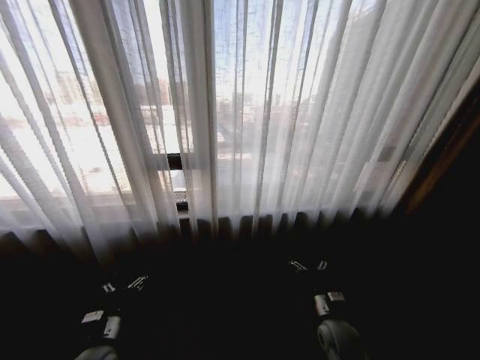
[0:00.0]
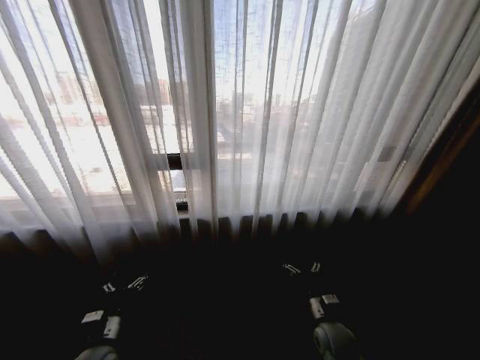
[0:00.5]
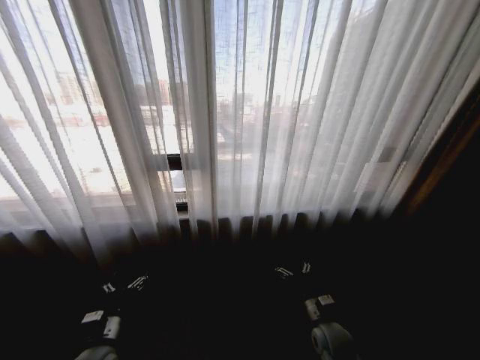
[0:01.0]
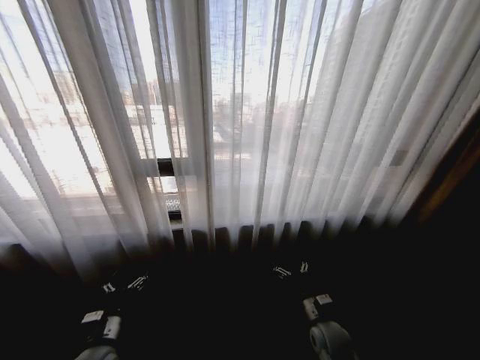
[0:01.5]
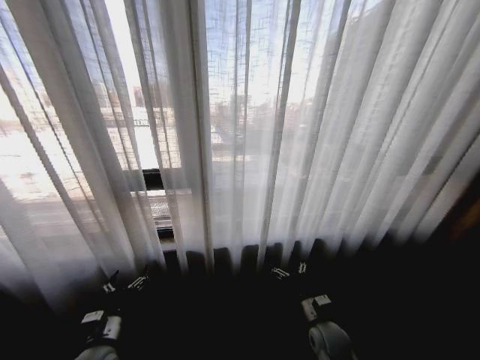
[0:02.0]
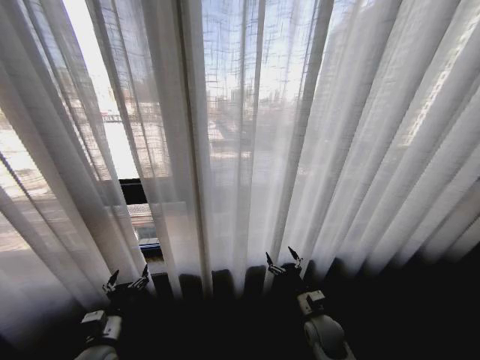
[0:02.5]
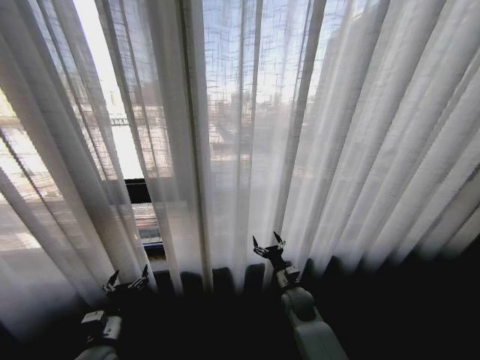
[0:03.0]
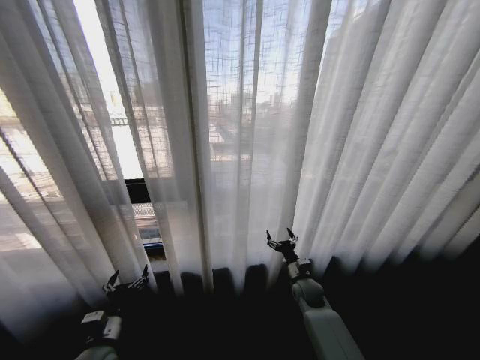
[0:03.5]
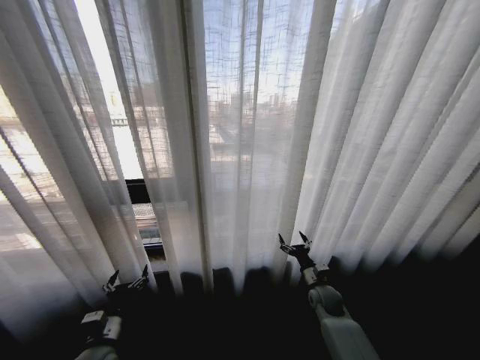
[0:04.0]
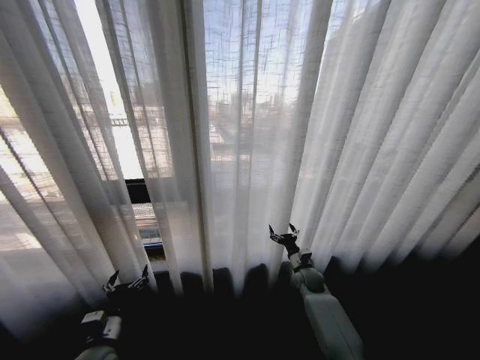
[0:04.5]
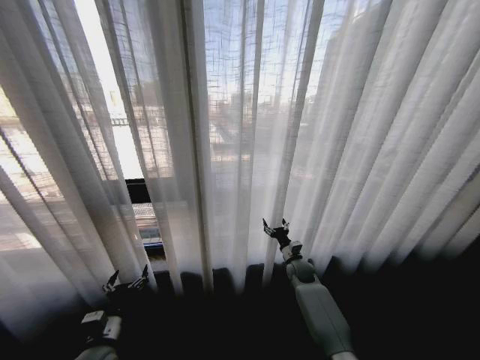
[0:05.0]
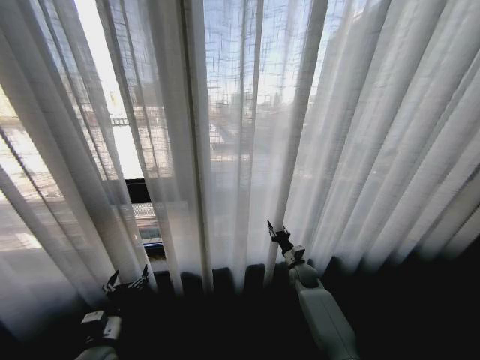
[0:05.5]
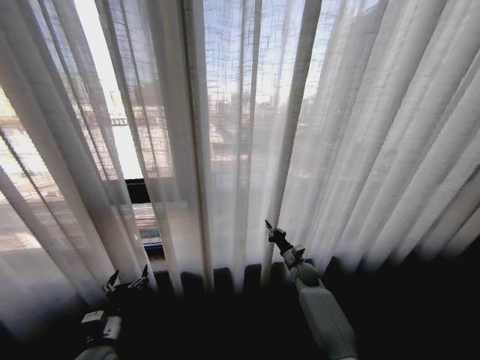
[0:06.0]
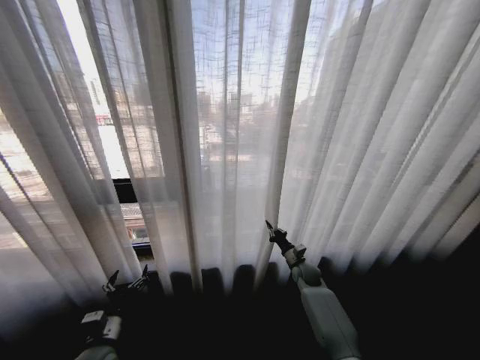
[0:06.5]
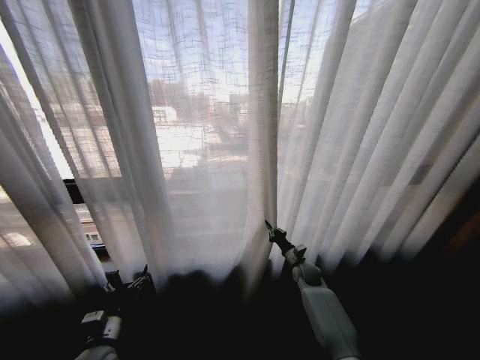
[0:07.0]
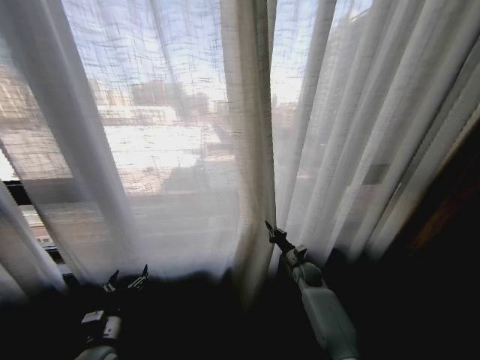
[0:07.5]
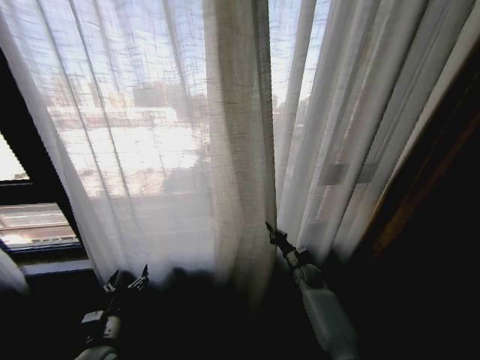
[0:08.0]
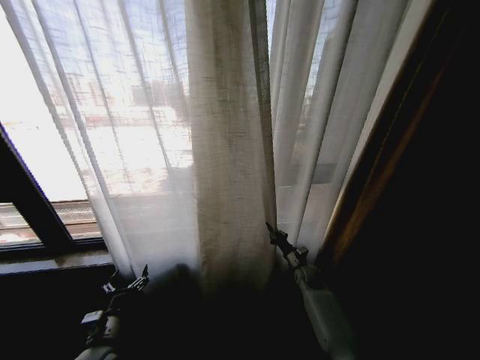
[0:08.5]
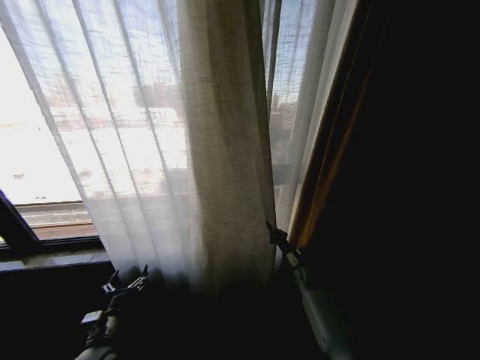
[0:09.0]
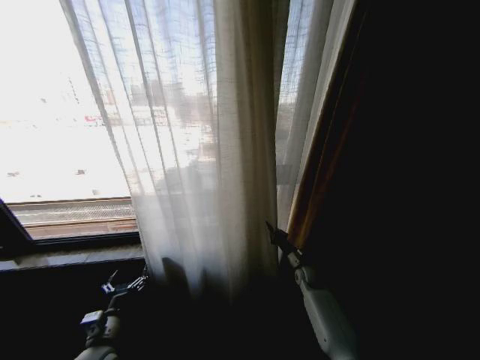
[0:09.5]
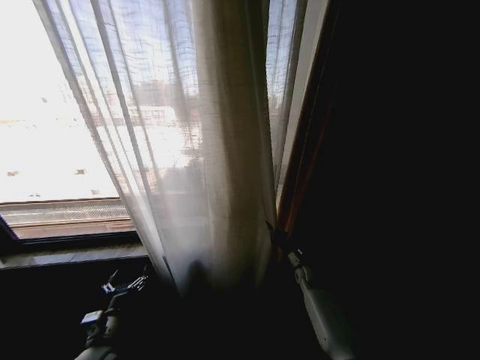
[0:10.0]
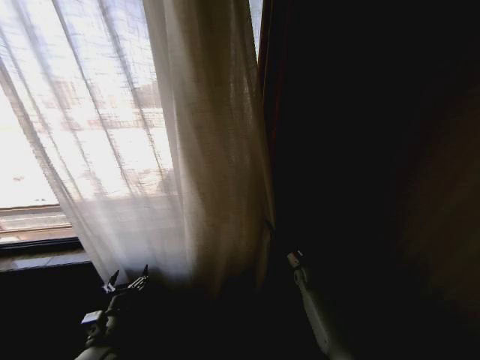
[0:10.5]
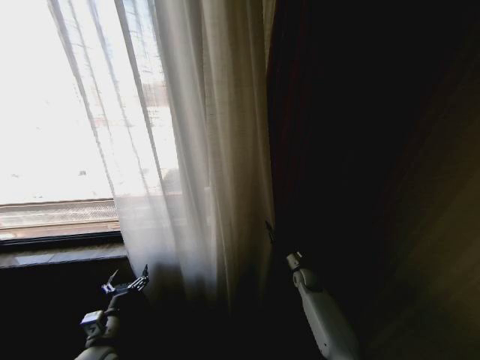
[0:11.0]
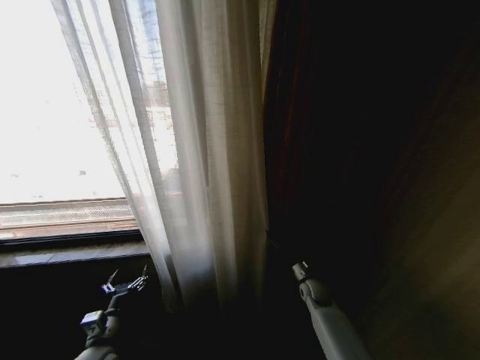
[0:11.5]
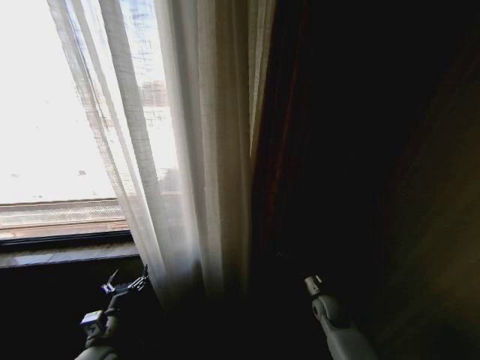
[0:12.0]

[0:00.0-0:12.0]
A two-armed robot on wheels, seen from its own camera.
Task of the whole recording: Open the curtains by pulling them apart, changing their state from closed to fully open.
0:02.0 to 0:04.0: The right gripper moves forward and to the right, about 10 cm.
0:04.0 to 0:06.0: The right gripper is displaced forward by some 10 cm, and closes its fingers.
0:10.0 to 0:12.0: The right gripper travels backward by about 10 cm, and opens its fingers.

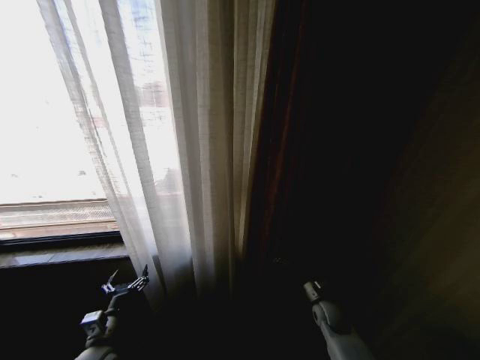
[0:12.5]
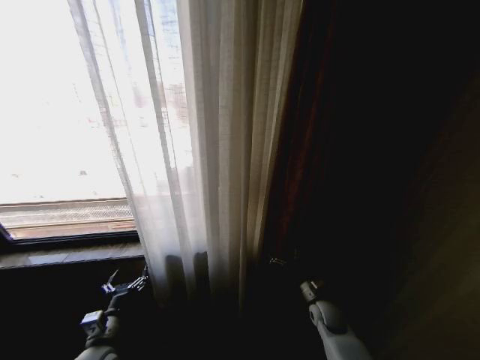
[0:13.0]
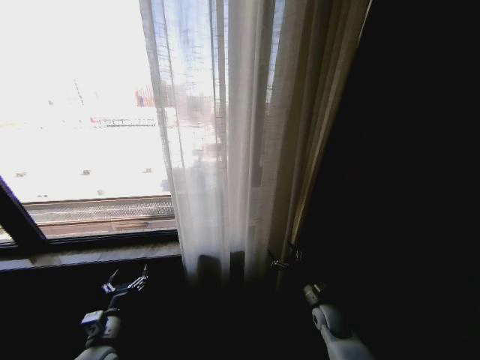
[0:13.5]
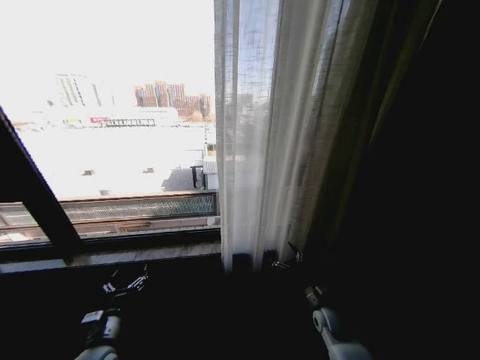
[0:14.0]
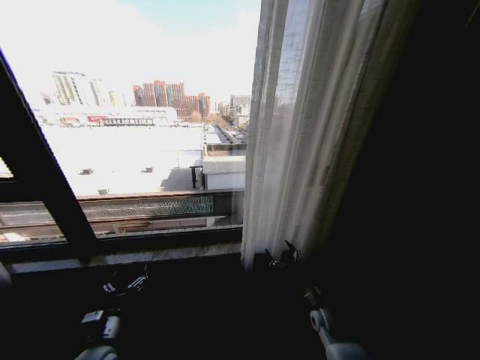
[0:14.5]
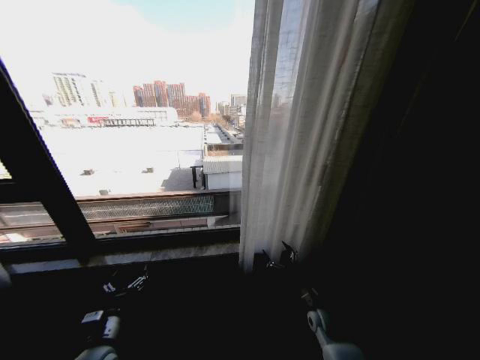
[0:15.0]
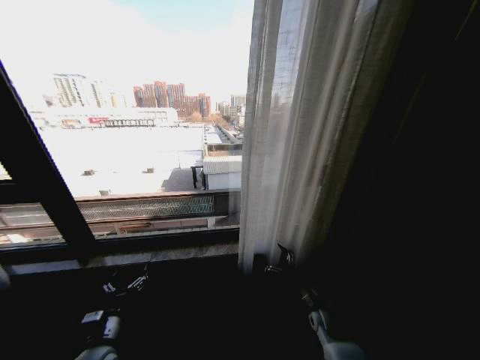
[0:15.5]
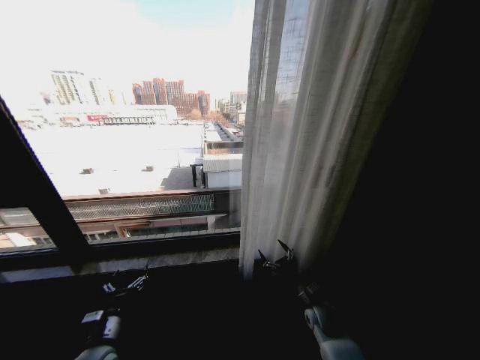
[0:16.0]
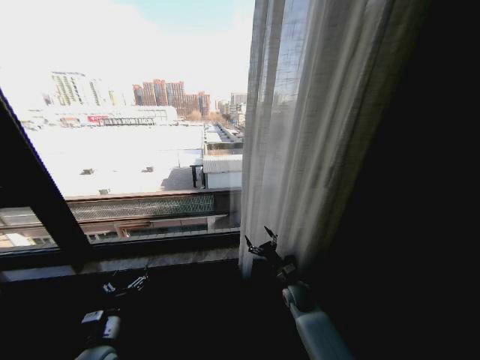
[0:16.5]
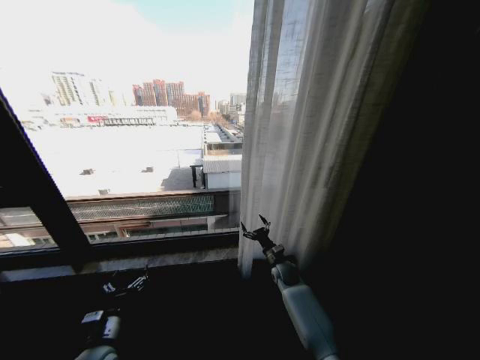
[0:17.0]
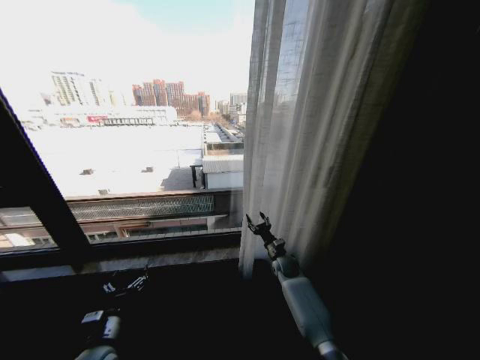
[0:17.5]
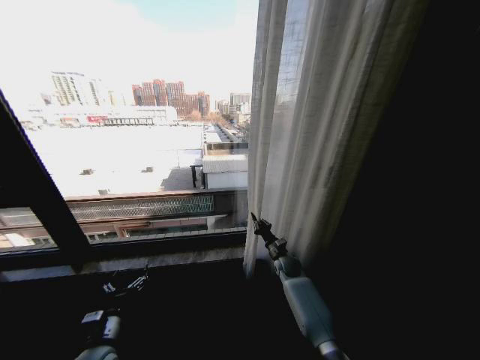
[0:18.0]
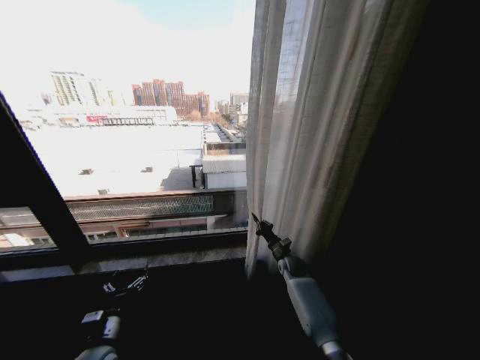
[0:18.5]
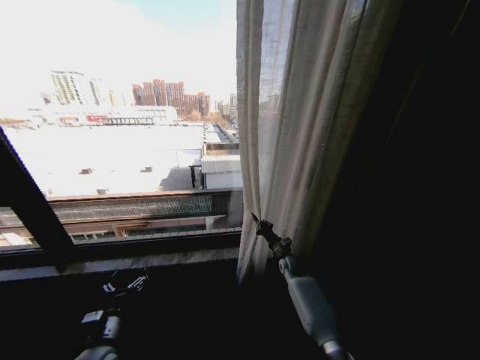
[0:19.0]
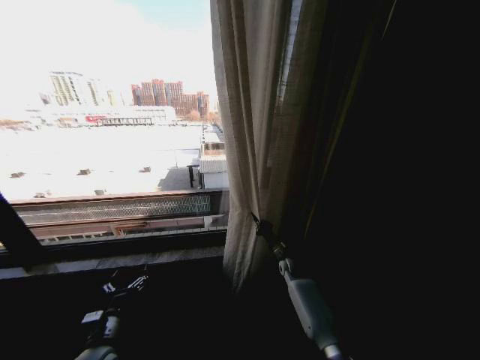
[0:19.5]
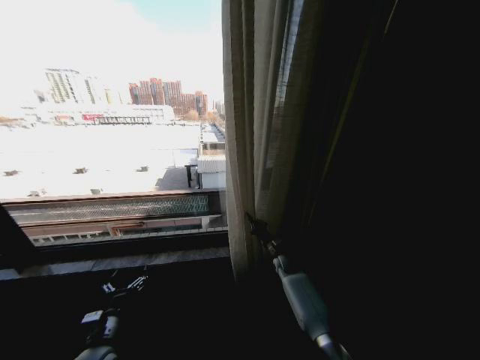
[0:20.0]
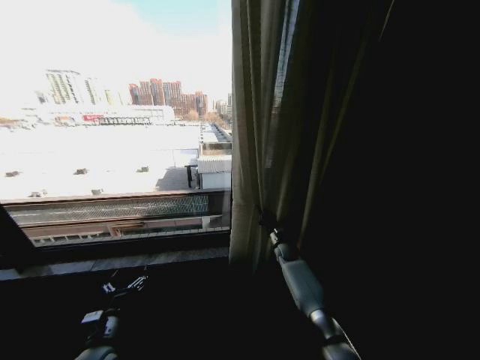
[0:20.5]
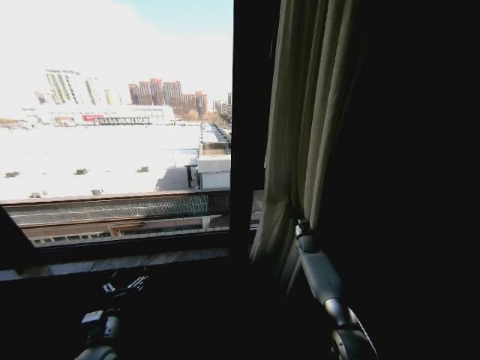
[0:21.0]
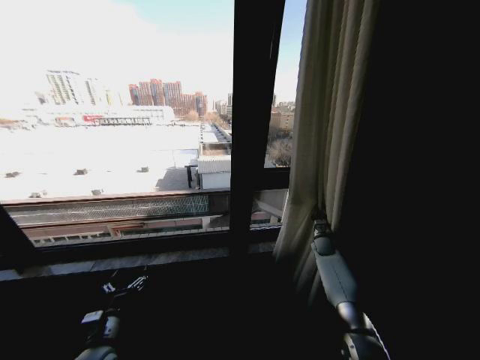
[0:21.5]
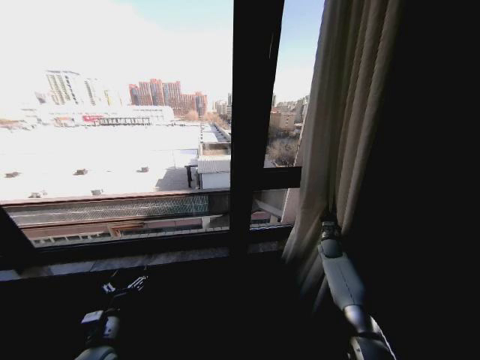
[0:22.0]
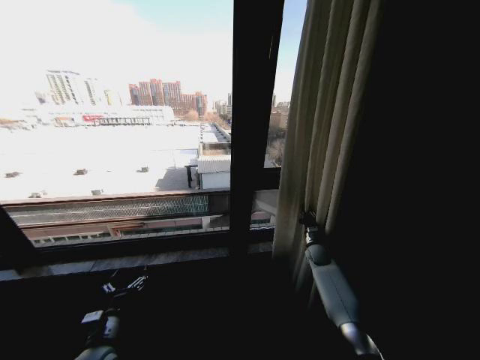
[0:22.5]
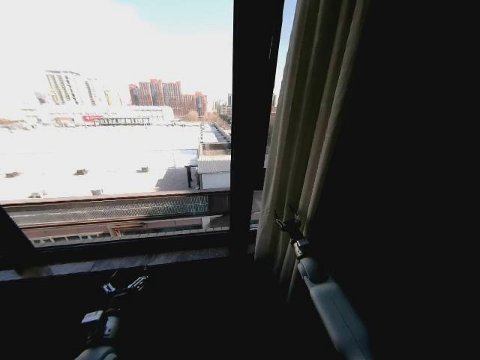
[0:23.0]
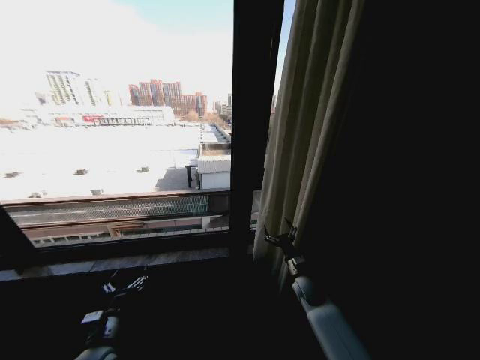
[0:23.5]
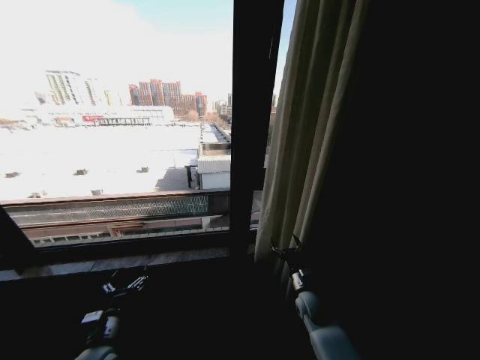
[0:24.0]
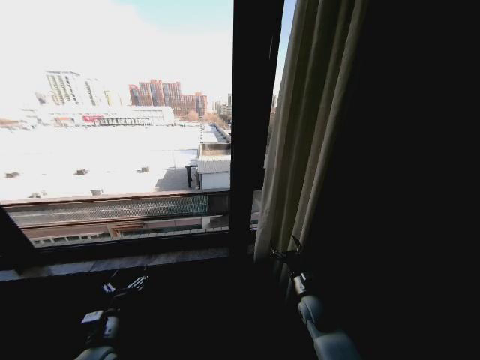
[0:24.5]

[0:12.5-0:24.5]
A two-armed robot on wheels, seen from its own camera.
Task of the whole recording: Open the curtains by pulling them apart, changing their state from closed to fully open.
0:14.5 to 0:16.5: The right gripper goes about 10 cm to the left and forward.
0:16.5 to 0:18.5: The right gripper is displaced forward by approximately 10 cm, and closes.
0:18.5 to 0:20.5: The right gripper shifts about 5 cm forward.
0:20.5 to 0:22.5: The right gripper goes roughly 10 cm to the right.
0:22.5 to 0:24.5: The right gripper is displaced backward and to the left by roughly 20 cm, and opens up.

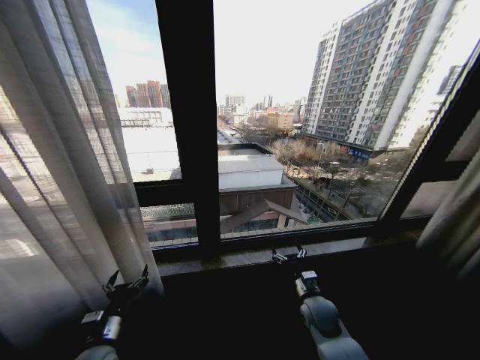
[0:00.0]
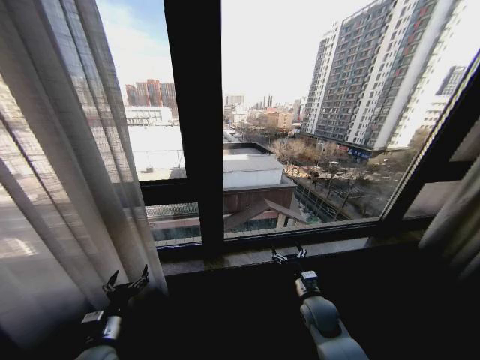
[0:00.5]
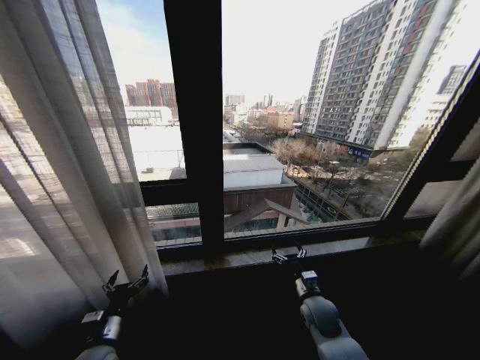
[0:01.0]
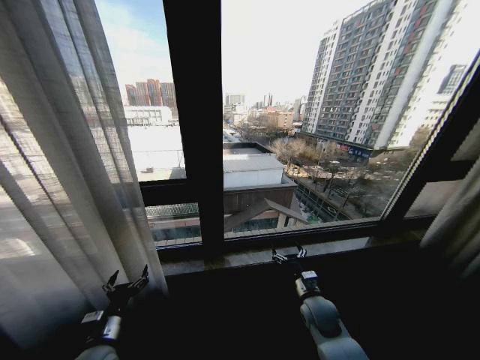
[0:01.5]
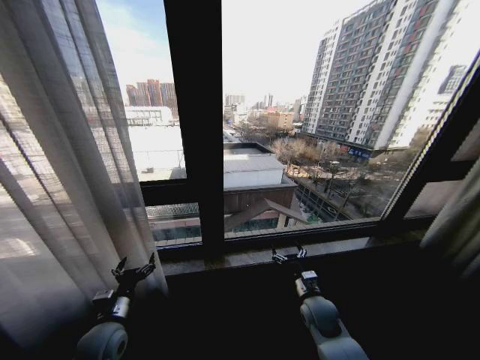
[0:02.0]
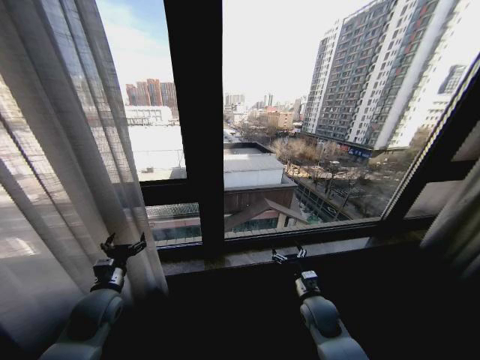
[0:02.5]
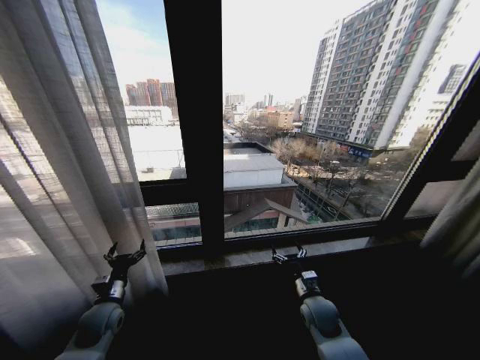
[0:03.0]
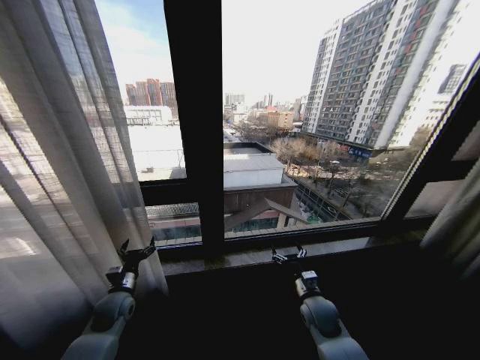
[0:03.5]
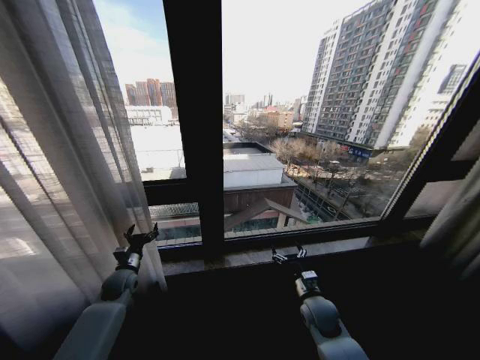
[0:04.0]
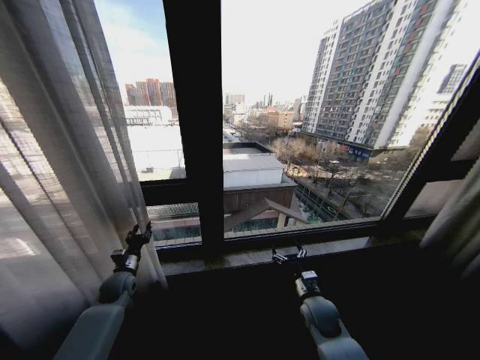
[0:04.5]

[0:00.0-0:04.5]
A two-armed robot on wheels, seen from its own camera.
Task of the whole recording: Open the curtains by pulling them apart, changing their state from closed to fully open.
0:00.0 to 0:02.0: The grippers stay close to where they were, moving slightly.
0:02.0 to 0:04.5: The left gripper travels forward by some 15 cm, and closes up.
